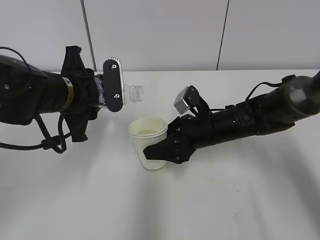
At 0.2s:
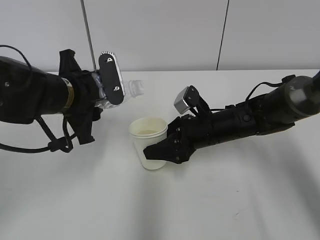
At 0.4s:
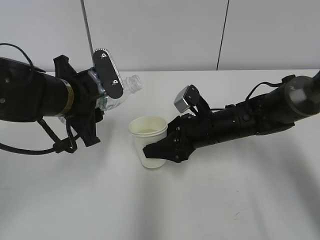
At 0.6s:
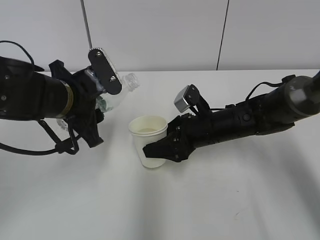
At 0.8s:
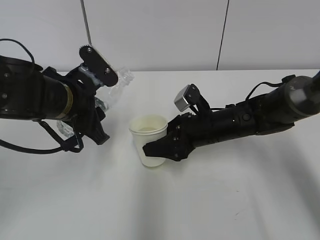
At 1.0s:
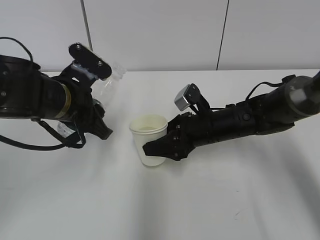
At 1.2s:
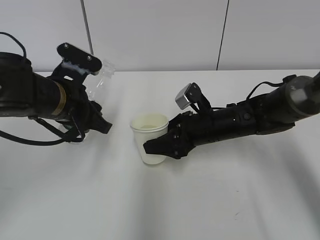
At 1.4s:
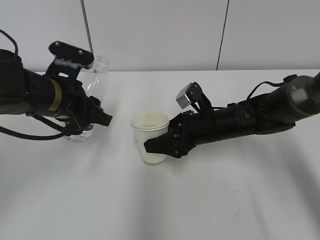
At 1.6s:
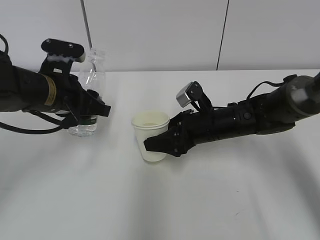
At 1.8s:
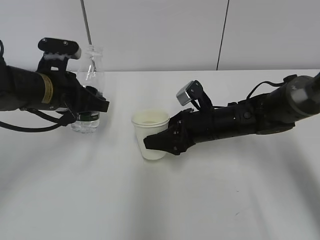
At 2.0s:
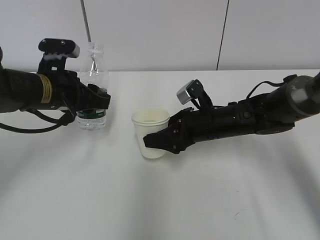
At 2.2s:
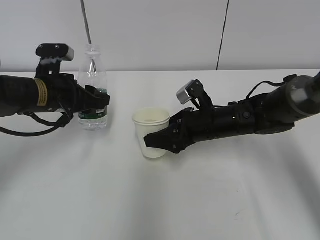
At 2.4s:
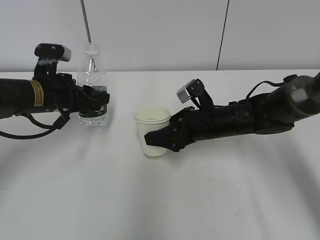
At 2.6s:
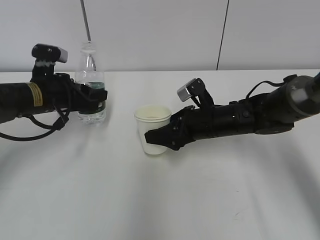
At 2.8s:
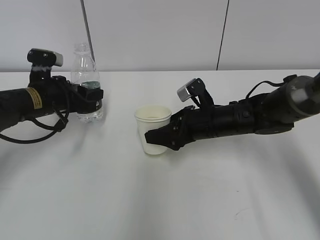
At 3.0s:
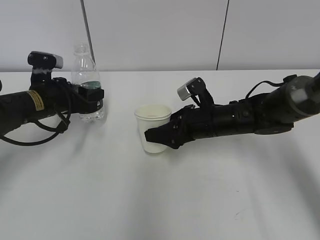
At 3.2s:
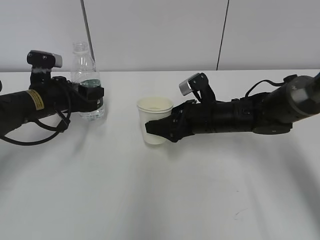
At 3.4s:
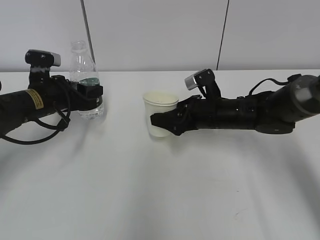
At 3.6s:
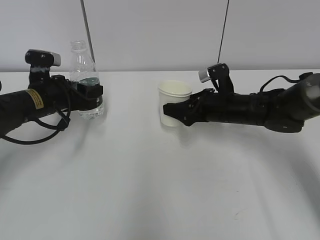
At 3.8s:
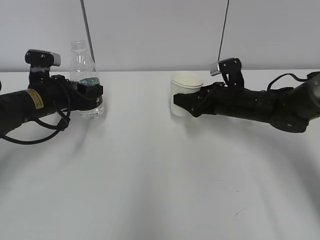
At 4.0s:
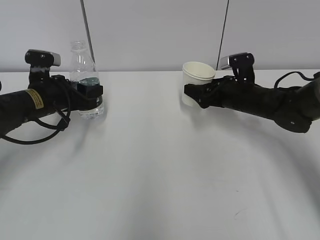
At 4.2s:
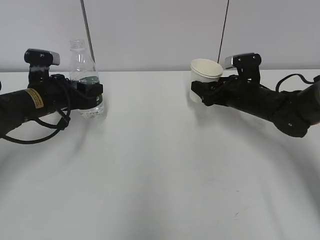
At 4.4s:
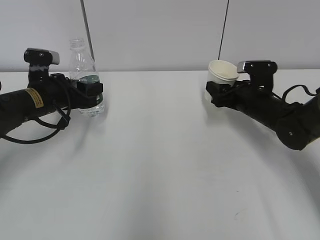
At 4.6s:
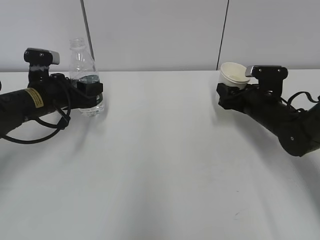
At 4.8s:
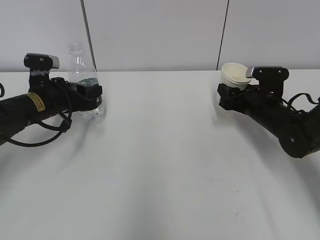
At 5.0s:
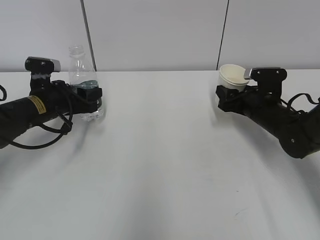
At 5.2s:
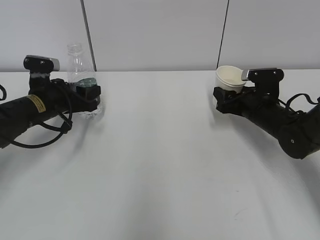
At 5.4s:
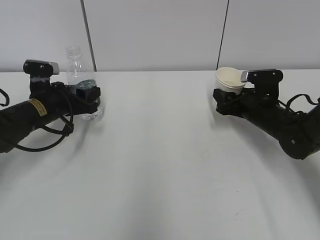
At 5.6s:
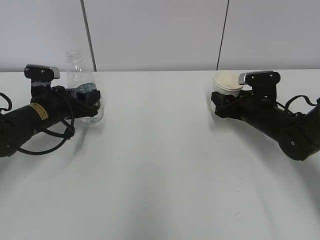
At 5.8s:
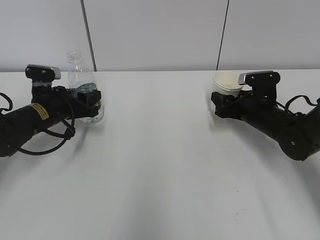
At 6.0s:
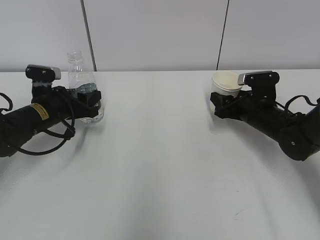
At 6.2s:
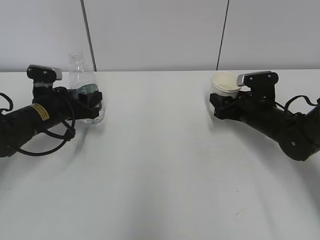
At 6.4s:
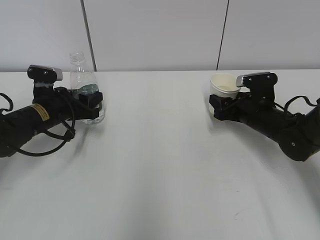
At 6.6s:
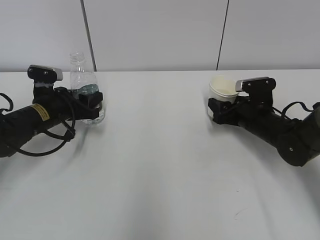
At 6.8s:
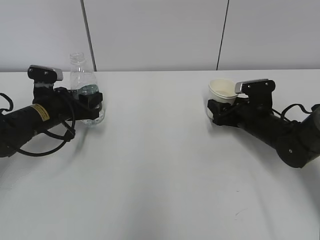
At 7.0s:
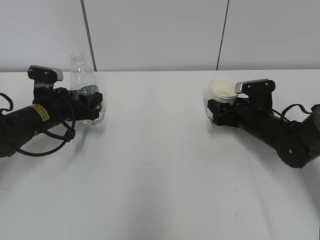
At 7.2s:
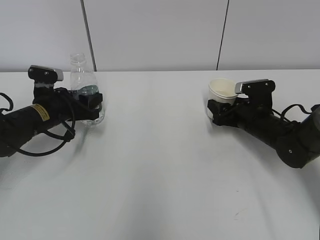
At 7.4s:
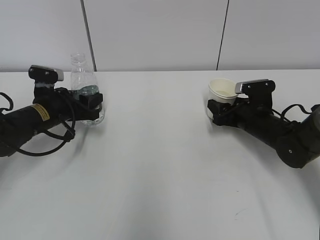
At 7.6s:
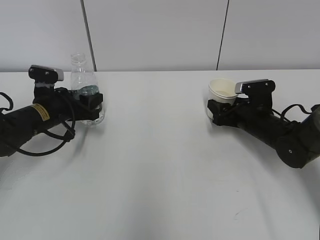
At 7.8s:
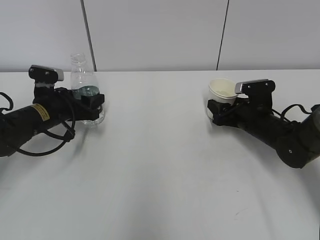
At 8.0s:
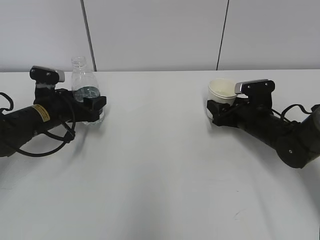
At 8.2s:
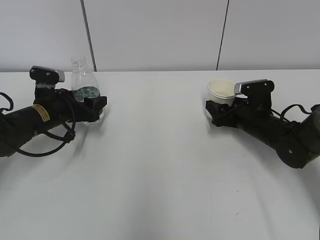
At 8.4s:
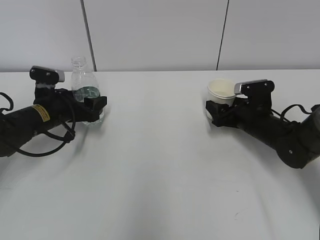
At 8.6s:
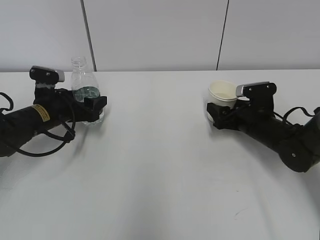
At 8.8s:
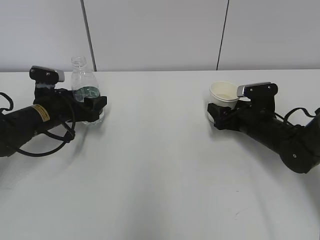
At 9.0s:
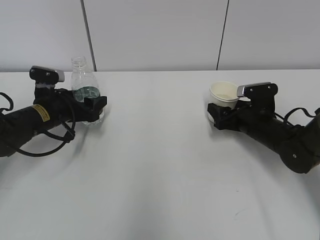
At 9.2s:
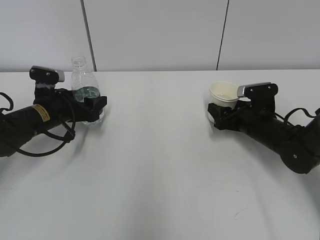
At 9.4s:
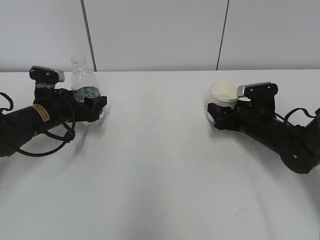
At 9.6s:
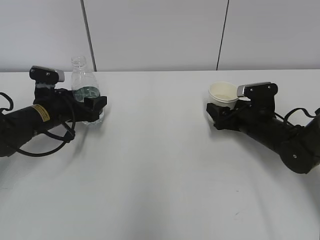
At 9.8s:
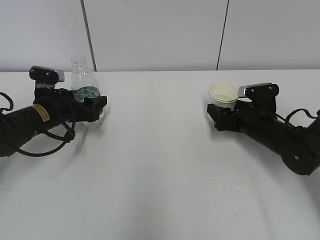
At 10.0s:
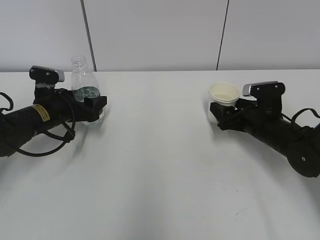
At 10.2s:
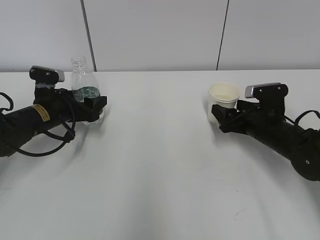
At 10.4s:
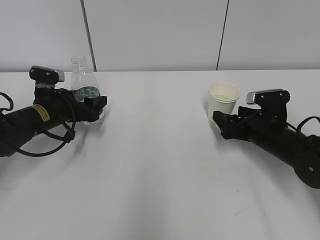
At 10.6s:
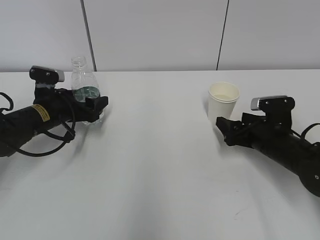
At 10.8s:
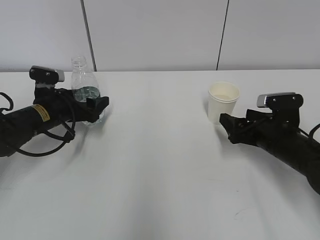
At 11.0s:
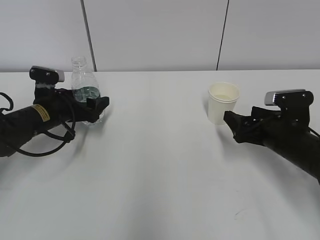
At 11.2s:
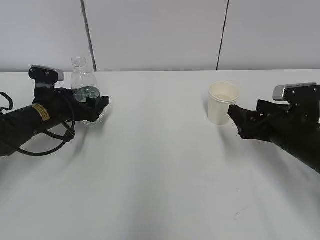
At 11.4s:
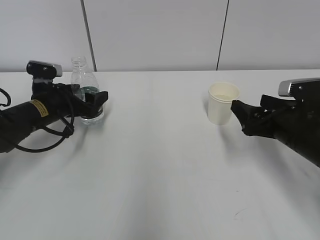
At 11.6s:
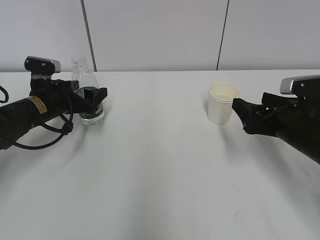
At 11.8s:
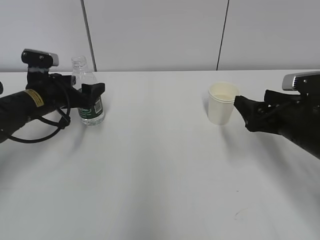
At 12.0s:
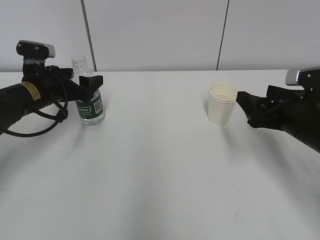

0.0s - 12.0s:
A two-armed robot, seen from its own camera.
Step, 0.0s - 4.4s: Place the paper cup with the right hand.
Step, 4.6s - 5.2s: Place the water bottle with the left hand.
1.6s - 3.0s: The left gripper shifts about 10 cm downward and forward.
3.0s - 4.4s: The right gripper heads to the right, covering roughly 10 cm.
4.4s - 7.6s: There are only small adjustments of the grippers.
7.6s - 9.0s: The left gripper opens up, while the right gripper opens its fingers.
9.0s - 10.4s: The grippers make only small movements.
10.4s - 12.0s: The right gripper is displaced upward and backward by about 10 cm; the left gripper shifts approximately 5 cm upward.

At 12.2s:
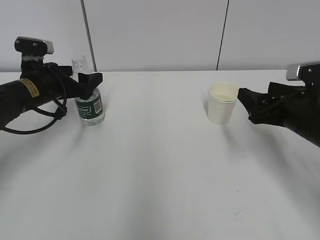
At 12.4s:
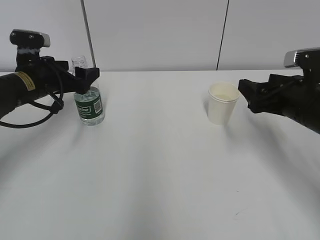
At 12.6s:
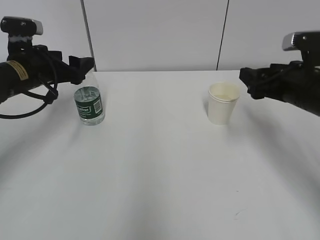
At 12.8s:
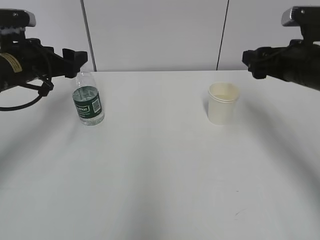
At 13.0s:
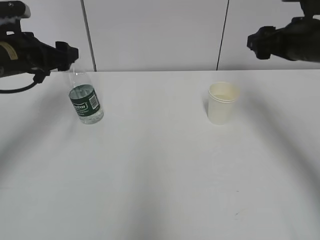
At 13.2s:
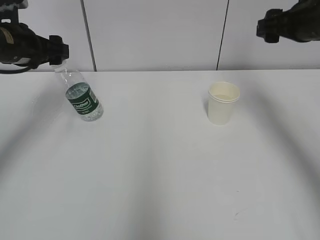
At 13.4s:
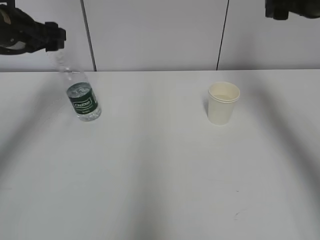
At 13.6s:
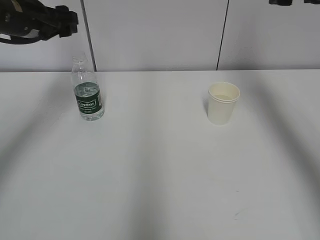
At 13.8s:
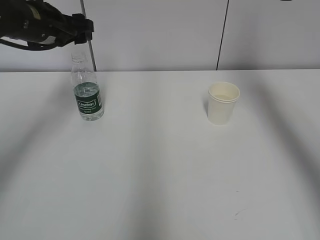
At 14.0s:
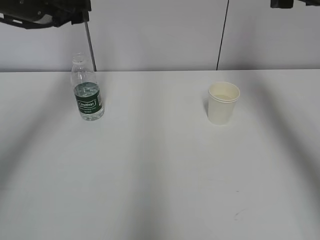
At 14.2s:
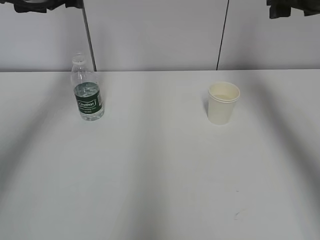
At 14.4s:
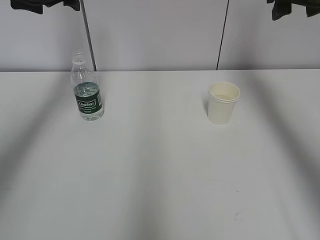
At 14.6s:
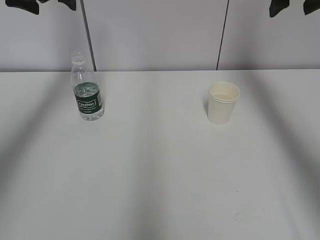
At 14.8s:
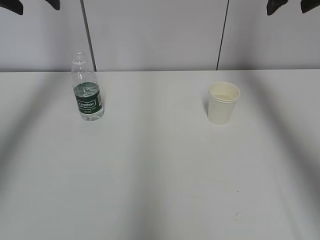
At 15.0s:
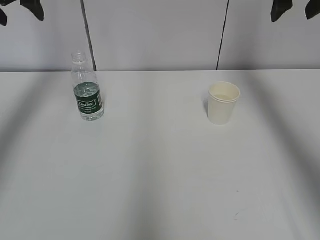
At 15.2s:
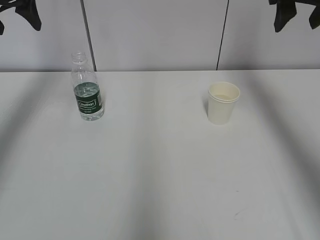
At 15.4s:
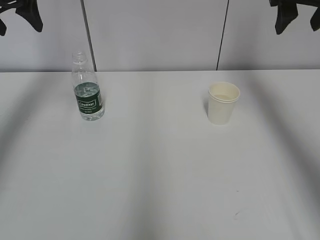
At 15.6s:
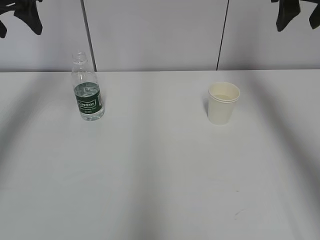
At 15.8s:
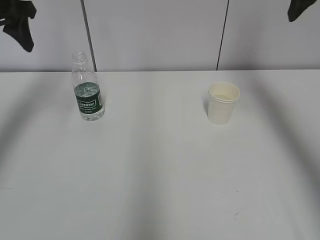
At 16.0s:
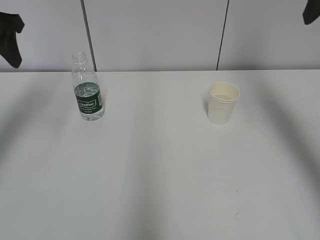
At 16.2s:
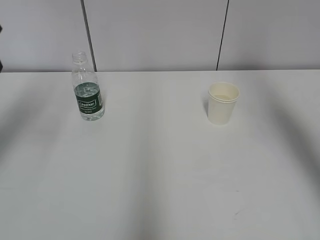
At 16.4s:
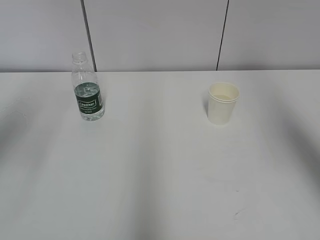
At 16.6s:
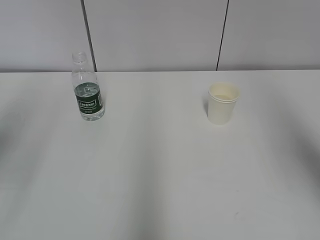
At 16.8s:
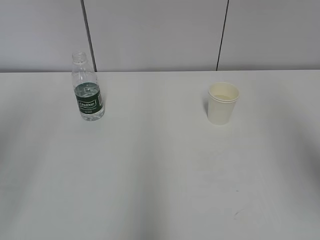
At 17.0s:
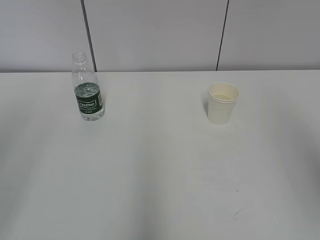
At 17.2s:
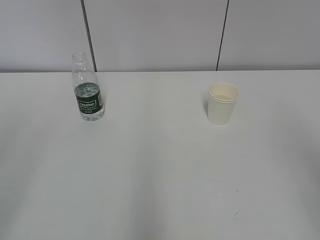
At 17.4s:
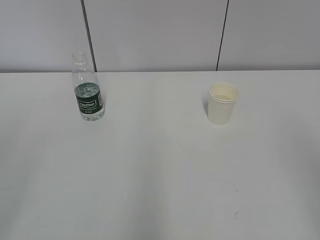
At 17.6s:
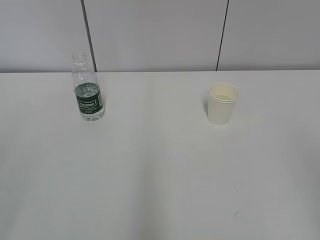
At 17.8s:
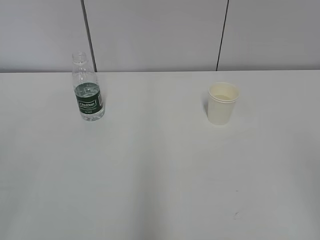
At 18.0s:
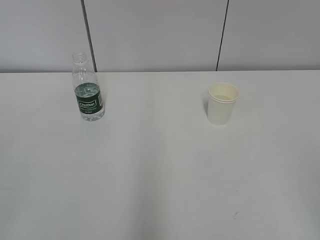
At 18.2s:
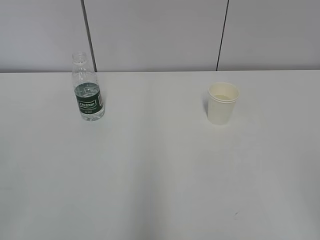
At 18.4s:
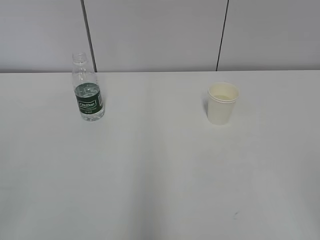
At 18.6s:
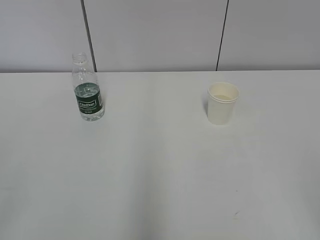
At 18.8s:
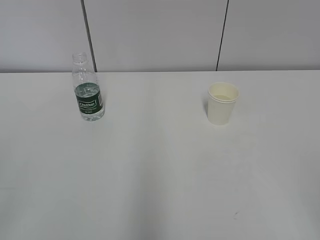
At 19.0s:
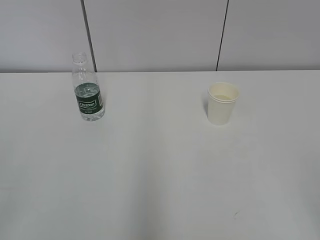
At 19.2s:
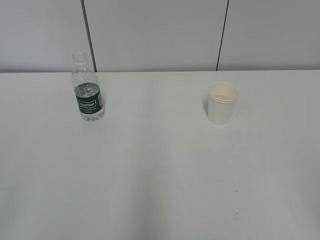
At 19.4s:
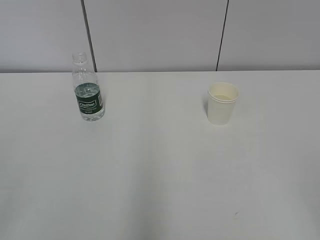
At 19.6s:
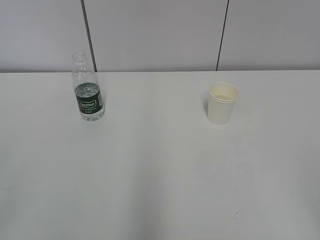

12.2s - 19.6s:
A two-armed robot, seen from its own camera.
12.2s - 13.6s: The left gripper travels upward by about 15 cm, while the right gripper heads upward and forward, covering roughly 20 cm.
13.6s - 15.2s: The left gripper shifts approximately 10 cm upward.
15.2s - 16.6s: The two grippers go roughly 25 cm backward. The right gripper closes.
16.6s - 18.2s: Both grippers move backward and downward, about 25 cm.

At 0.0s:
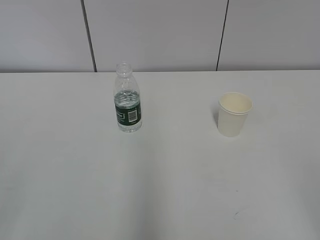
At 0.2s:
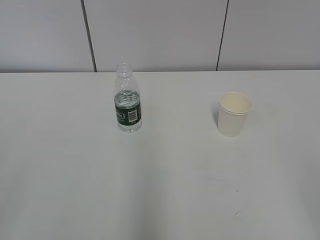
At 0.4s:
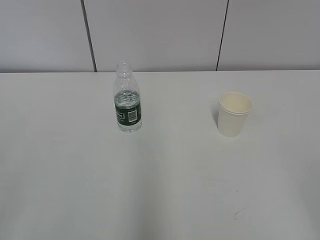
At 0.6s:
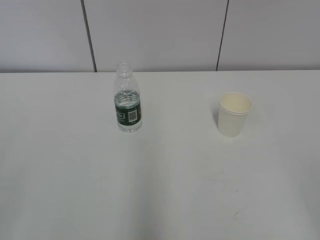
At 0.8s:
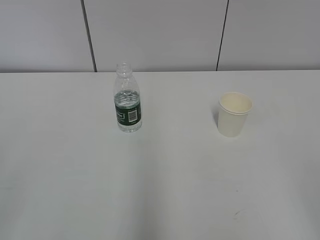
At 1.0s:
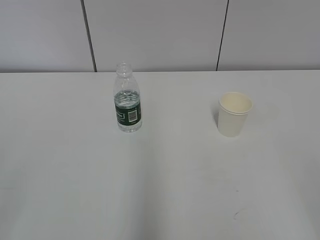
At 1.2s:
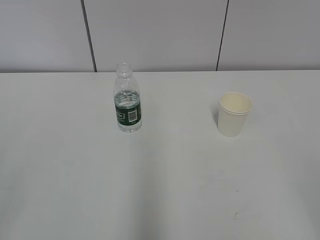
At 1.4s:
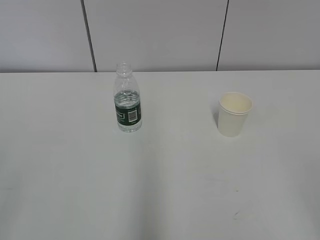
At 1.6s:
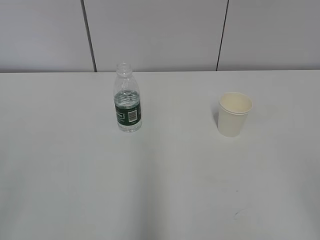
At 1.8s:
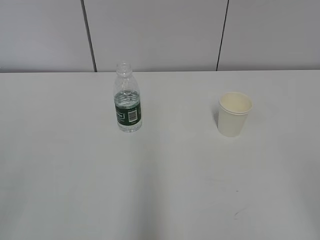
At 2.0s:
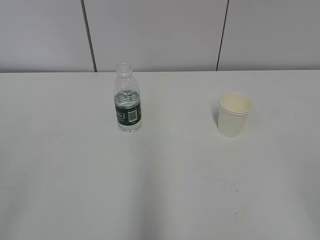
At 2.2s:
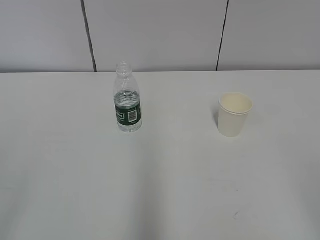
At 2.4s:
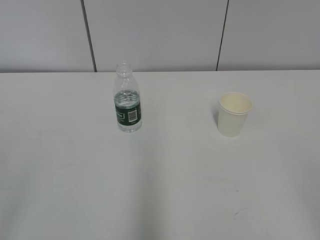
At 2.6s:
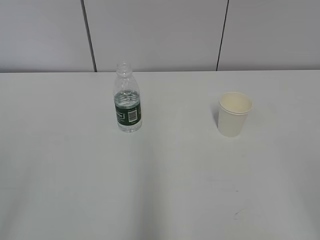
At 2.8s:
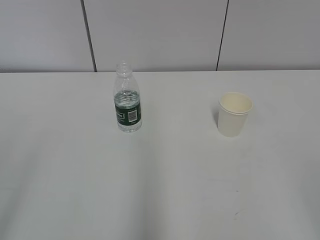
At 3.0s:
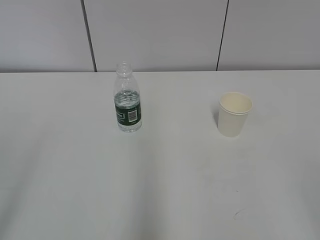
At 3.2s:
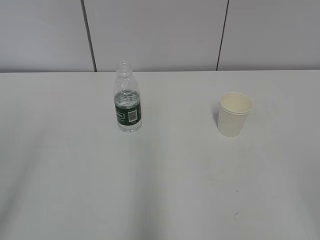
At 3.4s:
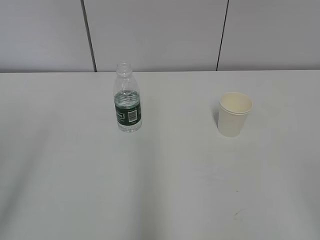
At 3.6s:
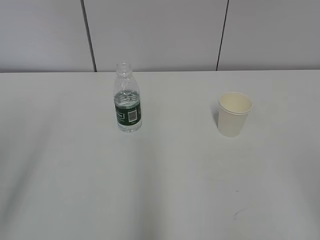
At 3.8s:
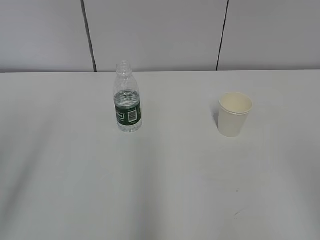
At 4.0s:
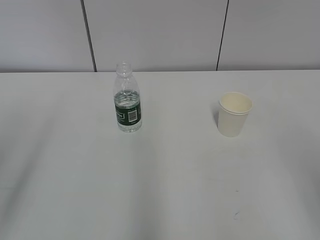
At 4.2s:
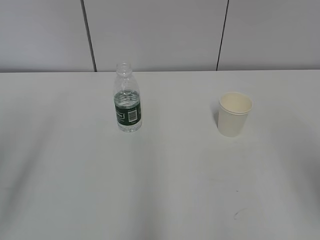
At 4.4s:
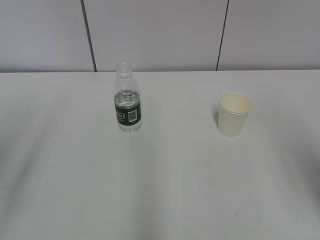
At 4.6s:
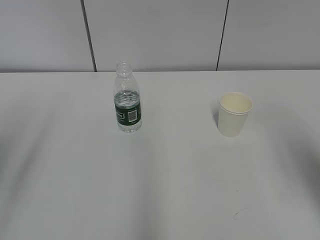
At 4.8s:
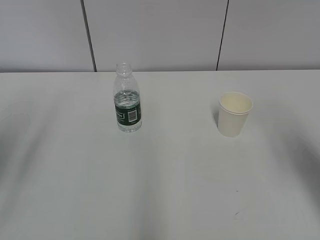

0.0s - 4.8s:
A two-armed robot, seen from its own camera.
3.2s - 4.8s: The right gripper moves forward, approximately 20 cm.
